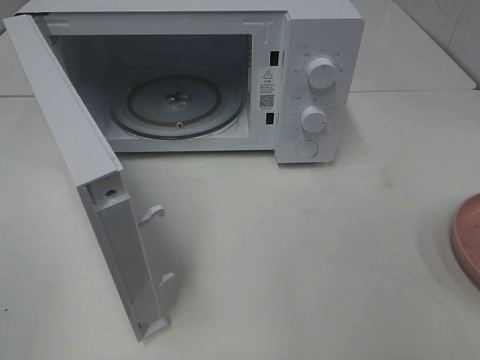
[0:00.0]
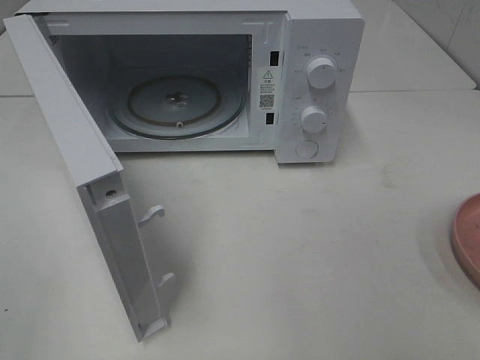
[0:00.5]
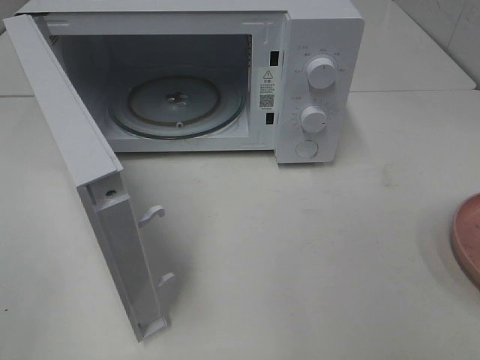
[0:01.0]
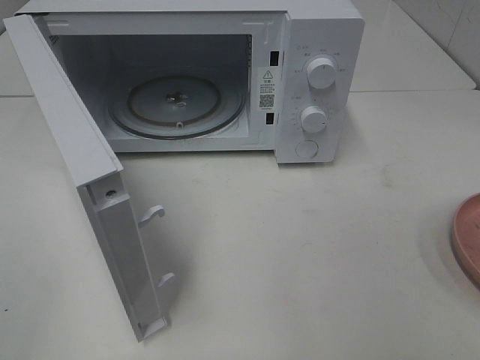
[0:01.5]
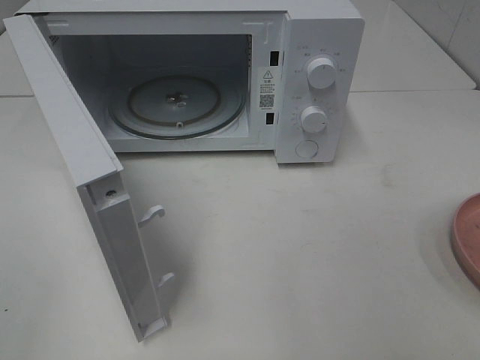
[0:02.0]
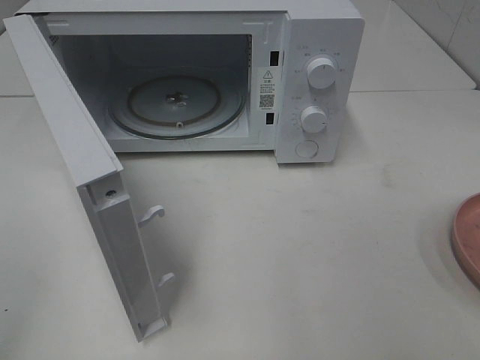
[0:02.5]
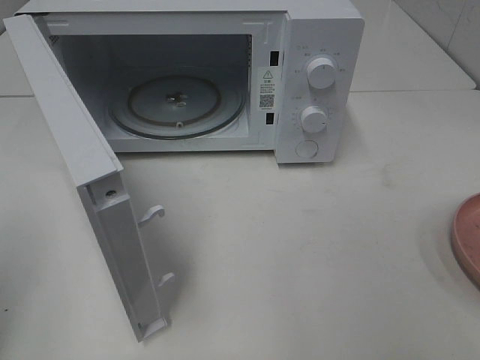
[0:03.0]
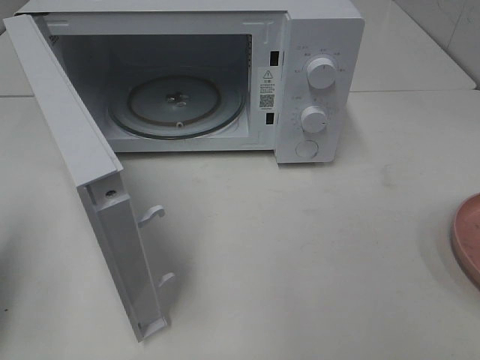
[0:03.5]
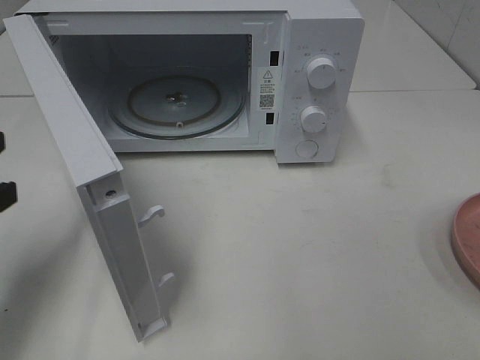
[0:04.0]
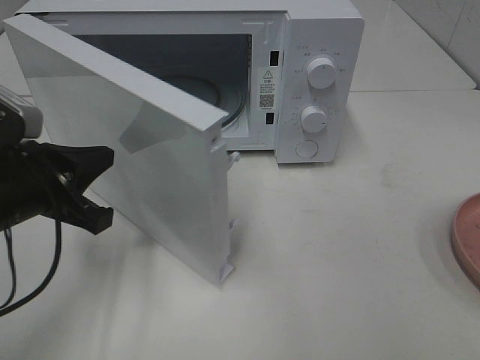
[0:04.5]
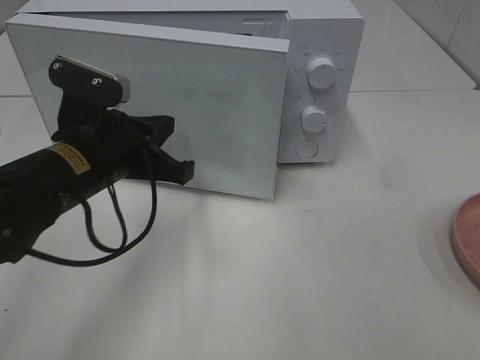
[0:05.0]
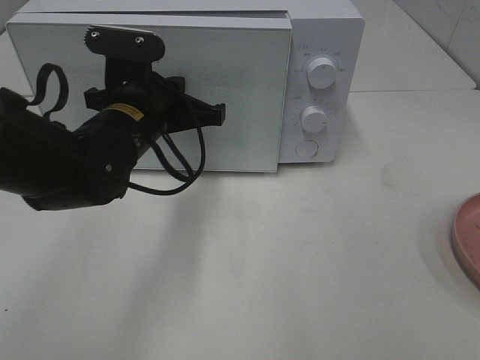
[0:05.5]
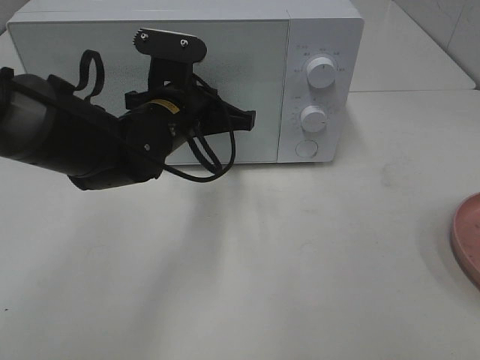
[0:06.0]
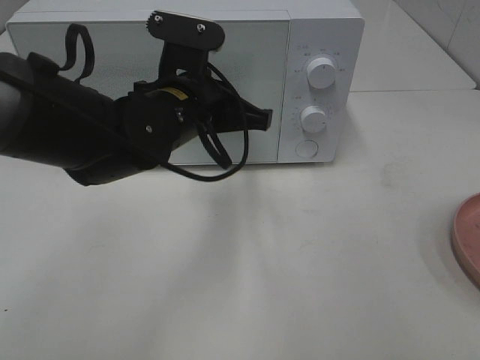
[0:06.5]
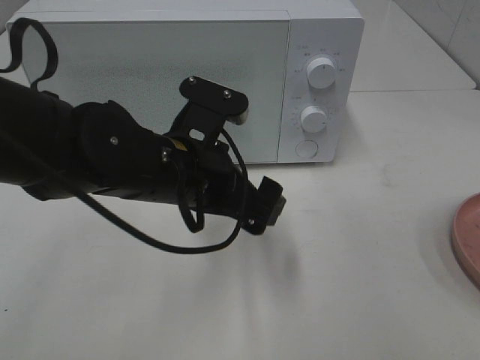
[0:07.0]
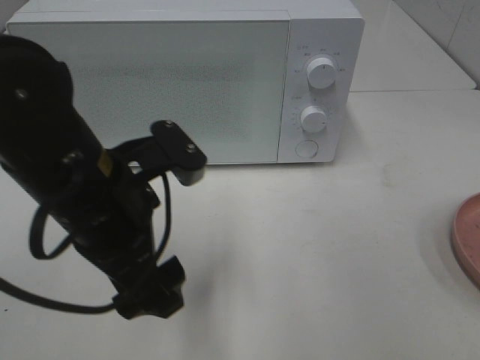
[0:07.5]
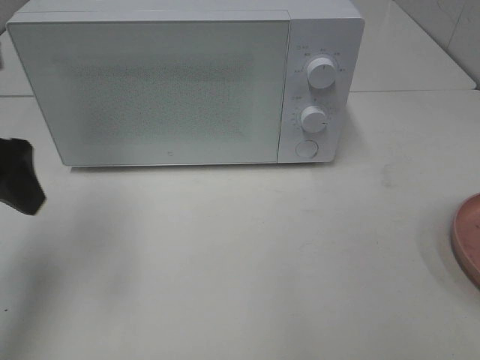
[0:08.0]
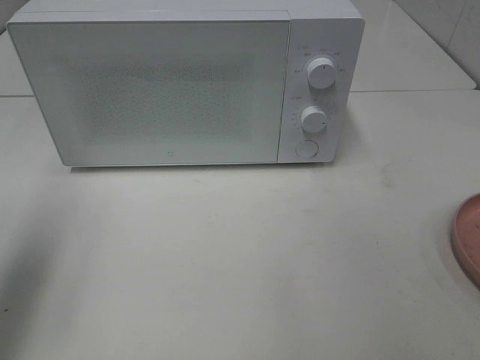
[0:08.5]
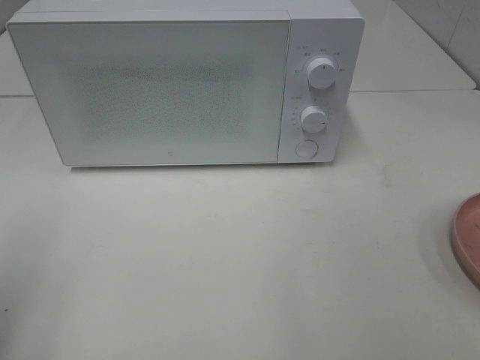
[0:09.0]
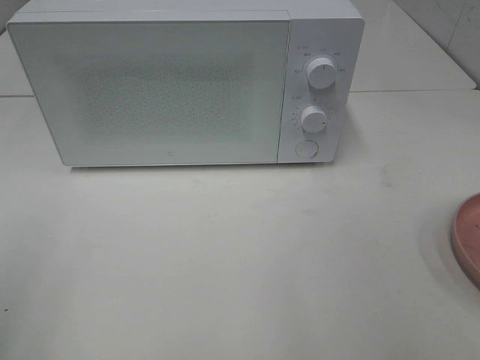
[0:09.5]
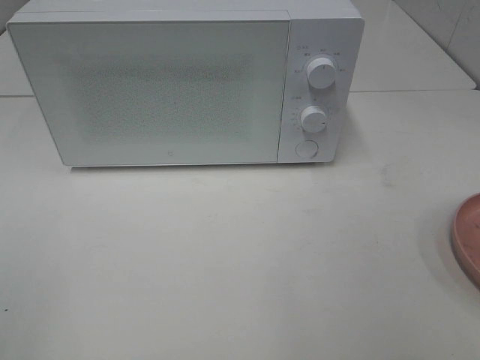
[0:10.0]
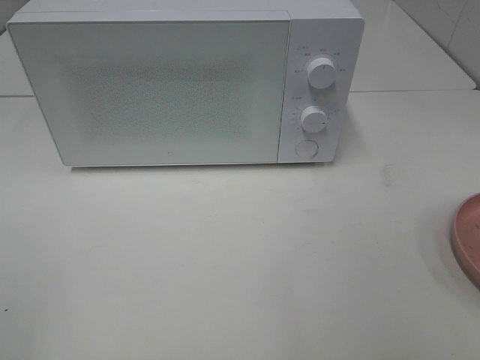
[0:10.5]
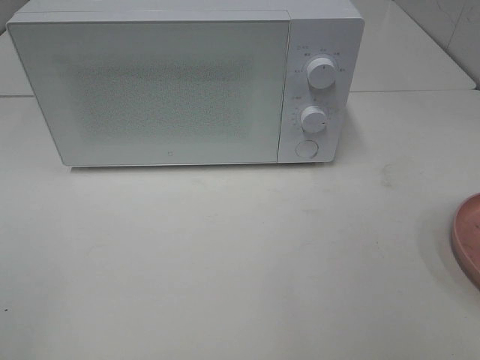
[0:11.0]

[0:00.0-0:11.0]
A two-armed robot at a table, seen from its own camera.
Task of the whole recording: Heat the burger.
Step, 0.0 to 6.5 s: Left hand: close the microwave door.
0.0 to 2.0 s: Both grippers stay about where they are.
2.0 to 3.5 s: The left gripper goes roughly 15 cm forward and downward, and closes its fingers.
3.5 to 5.5 s: The left gripper goes some 30 cm to the right and forward.
5.5 to 7.5 s: The left gripper is displaced backward by approximately 10 cm, and opens.
7.5 to 9.0 s: The left gripper shifts about 25 cm to the left and backward.

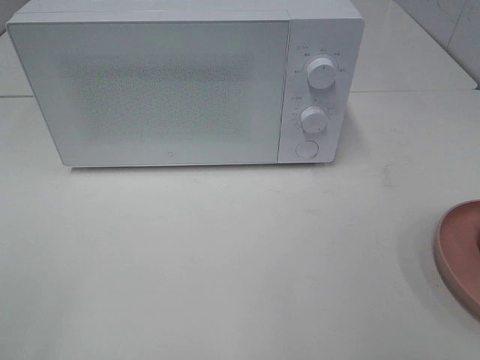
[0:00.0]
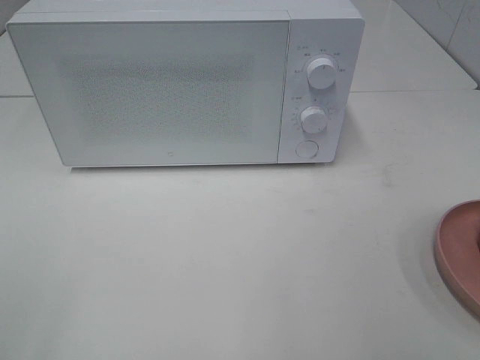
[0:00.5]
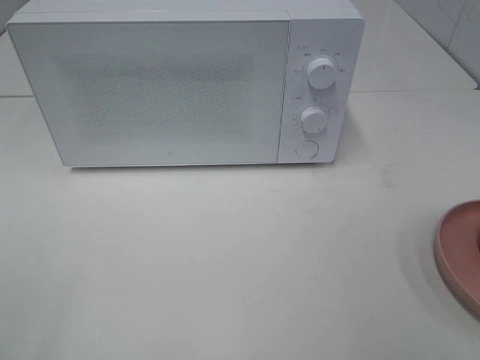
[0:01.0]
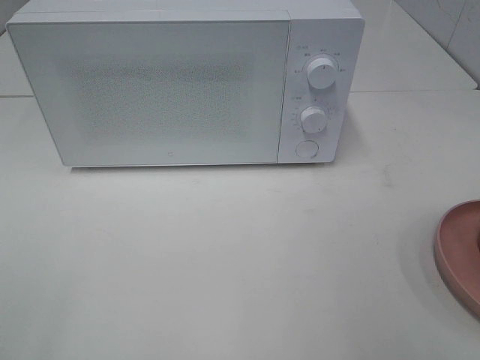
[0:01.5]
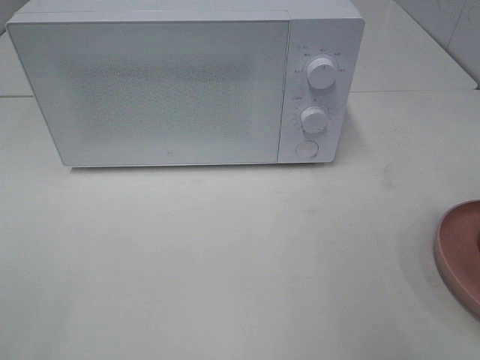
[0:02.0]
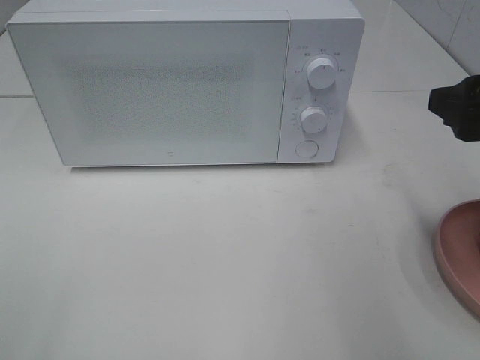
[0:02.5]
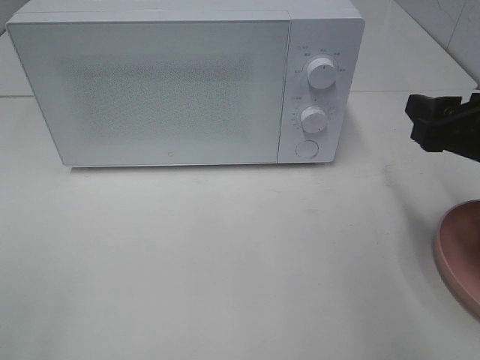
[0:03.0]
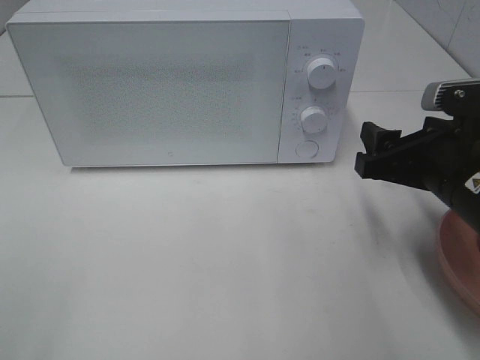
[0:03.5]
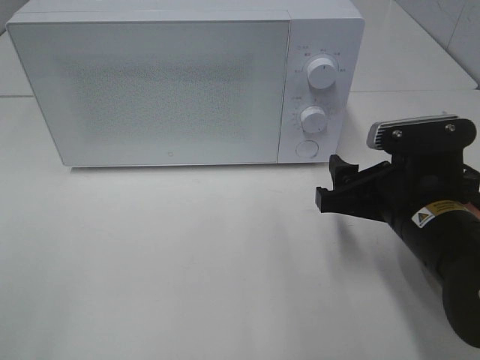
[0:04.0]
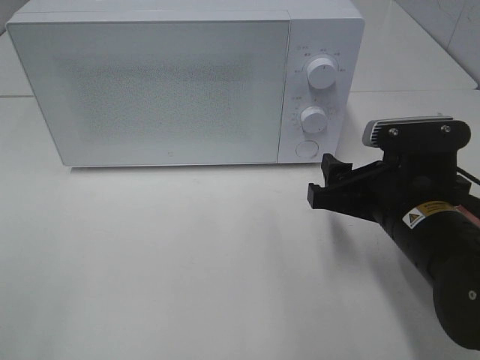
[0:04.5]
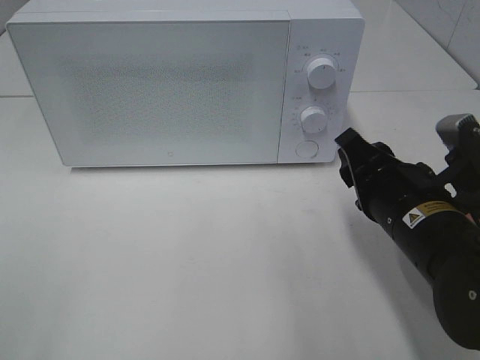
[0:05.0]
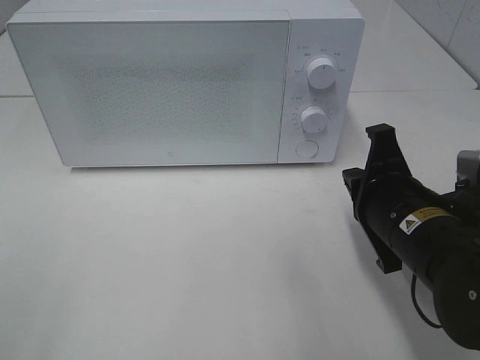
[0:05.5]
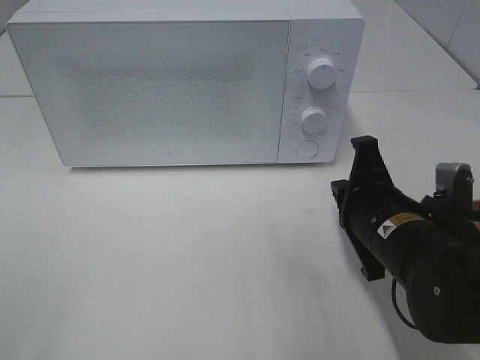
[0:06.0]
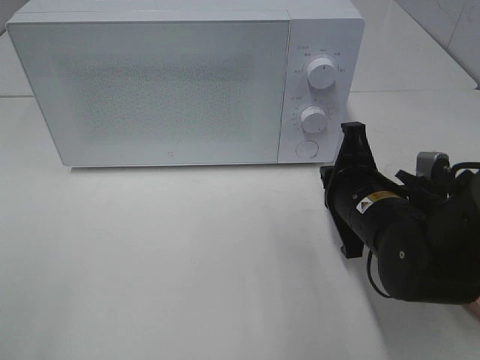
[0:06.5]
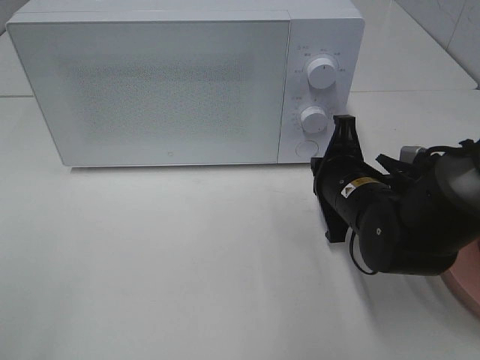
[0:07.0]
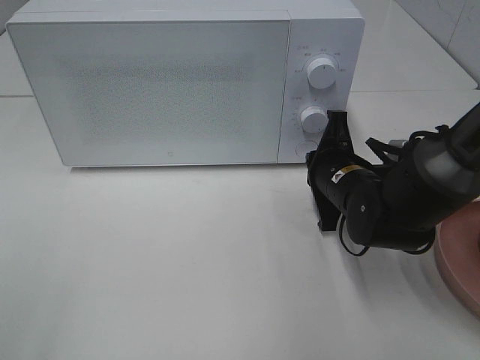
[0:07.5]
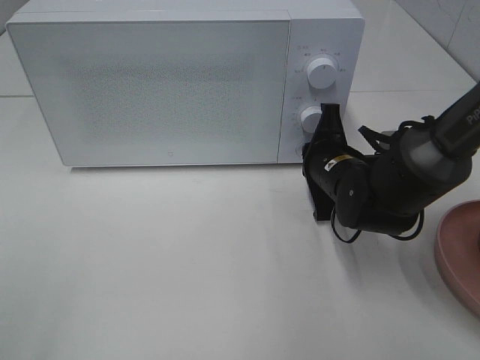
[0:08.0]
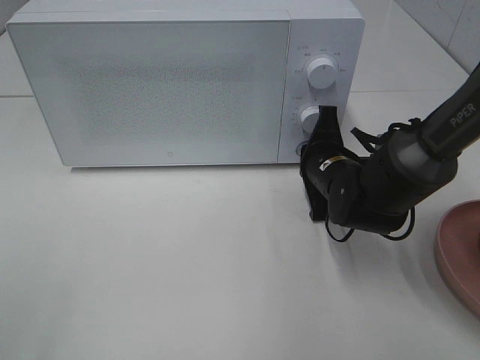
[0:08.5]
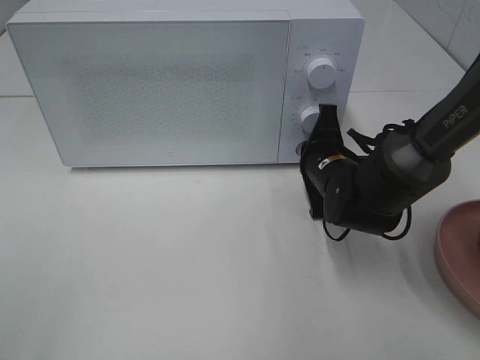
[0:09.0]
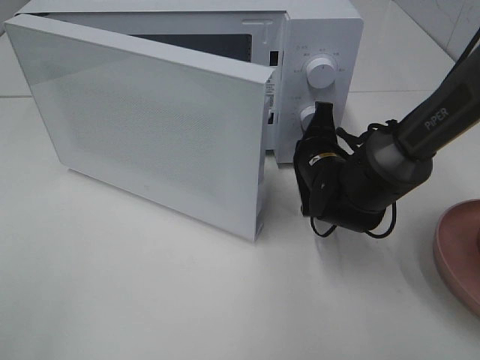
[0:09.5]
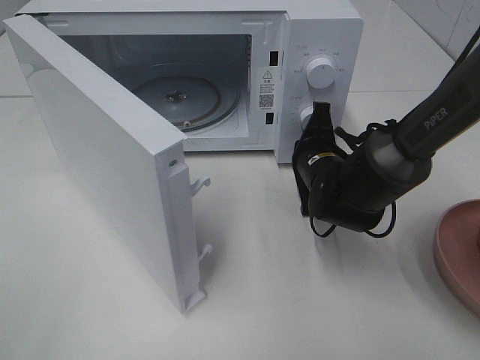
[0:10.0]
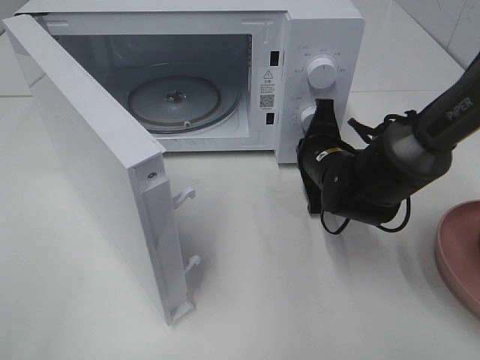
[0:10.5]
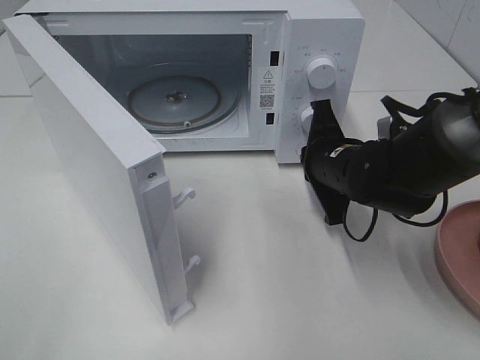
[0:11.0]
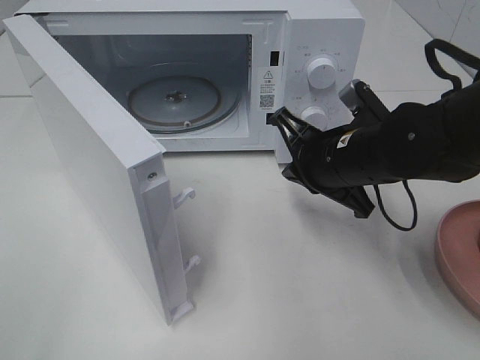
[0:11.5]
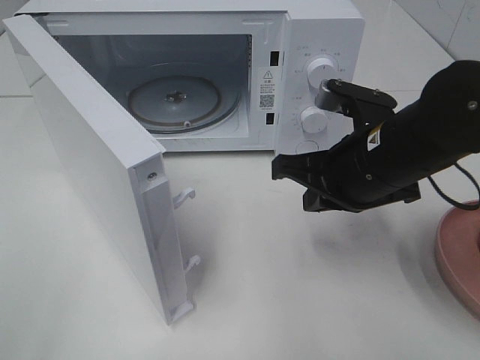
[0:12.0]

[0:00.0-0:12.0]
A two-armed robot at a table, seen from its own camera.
Task of the whole recording: Heat the burger.
Step, 0.0 to 11.0 s: Right hand: press the switch.
2.0 to 4.0 s: The right gripper travels downward, to the left and forward by roughly 20 cm.
4.0 to 6.0 s: The right gripper closes its fingers.
6.0 to 8.0 s: The right gripper travels forward by some 10 cm.
10.0 to 12.0 s: The right gripper heads upward and backward, covering approximately 15 cm.

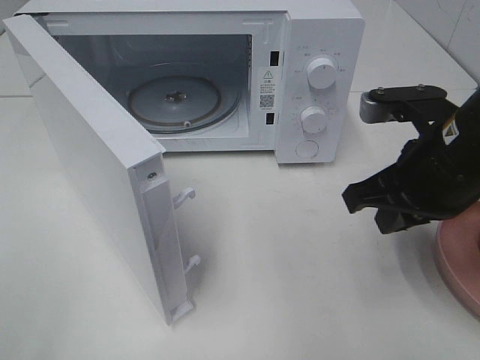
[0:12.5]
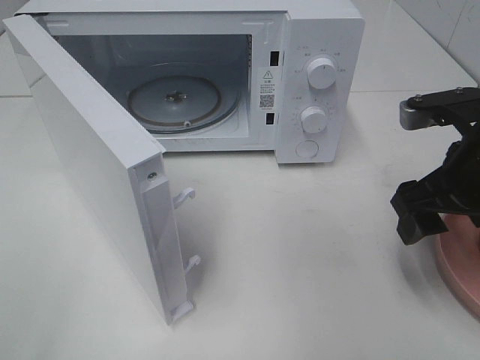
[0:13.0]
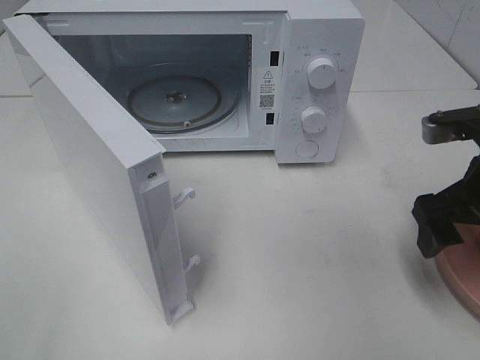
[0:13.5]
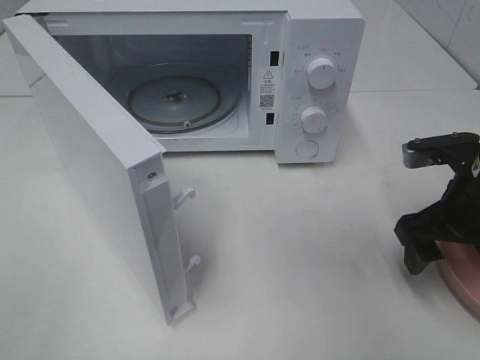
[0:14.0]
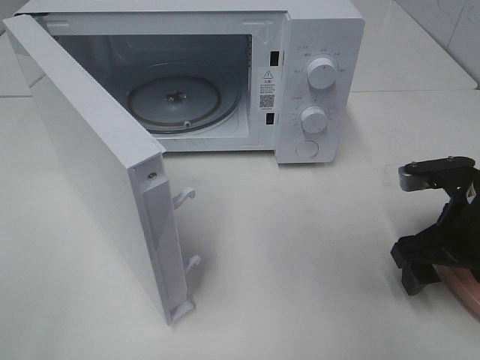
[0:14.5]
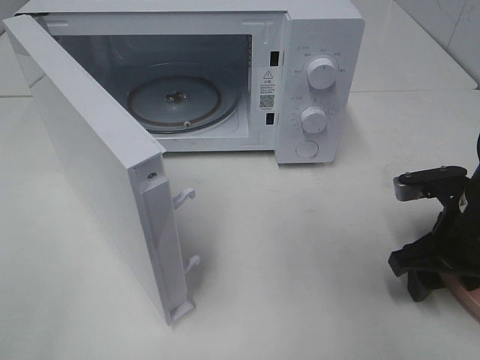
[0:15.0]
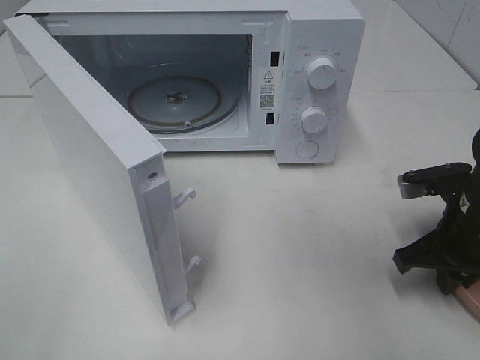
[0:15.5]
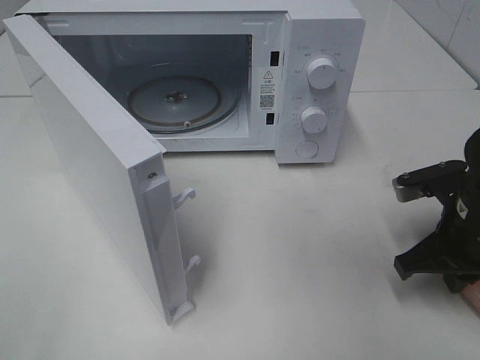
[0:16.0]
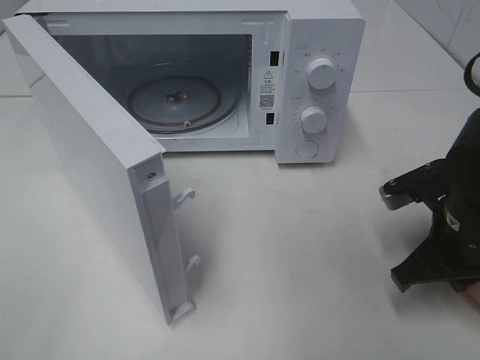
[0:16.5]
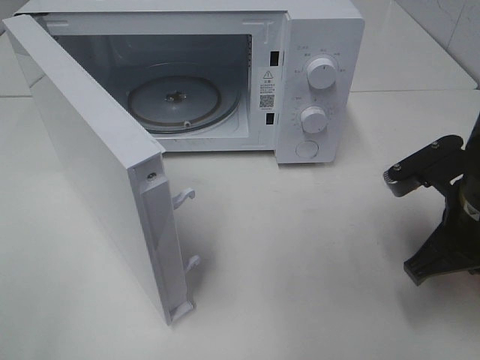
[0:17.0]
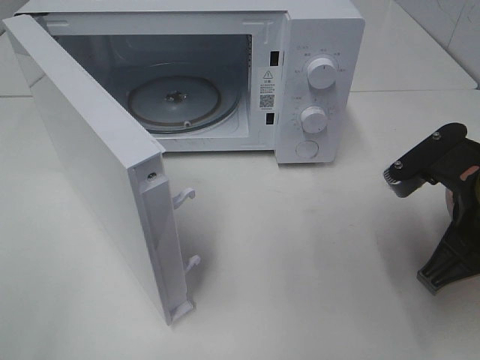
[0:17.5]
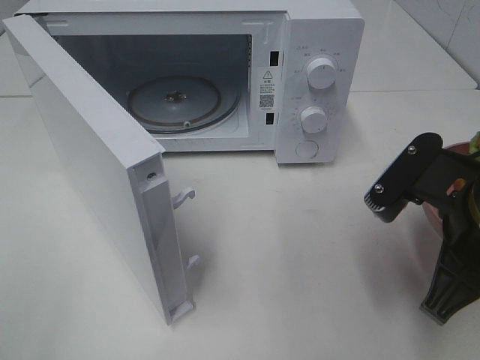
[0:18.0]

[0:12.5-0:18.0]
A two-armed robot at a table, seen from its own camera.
Task of the whole recording: Heat the burger.
Step, 12.5 to 16.0 s: Right hand: grab the plate with the hamburger.
12.5 to 14.5 s: The right gripper moves downward and to the right, roughly 10 cm, and opens up.
14.5 to 16.0 s: The right gripper closes up.
16.0 to 18.0 s: The right gripper shifts some 10 cm upward, backward and to the left.
